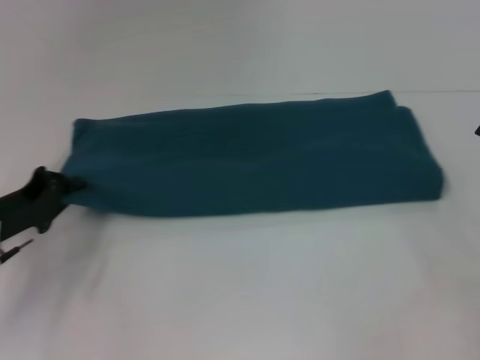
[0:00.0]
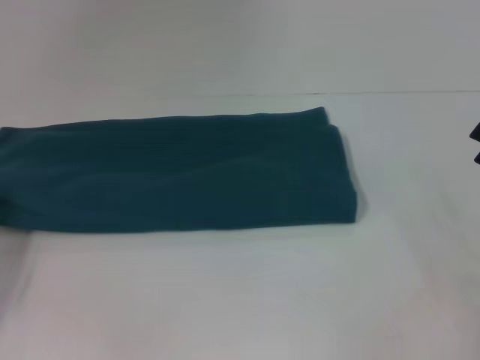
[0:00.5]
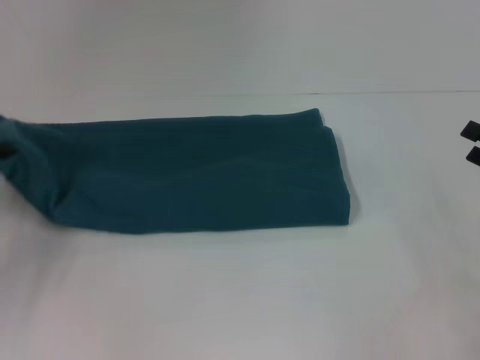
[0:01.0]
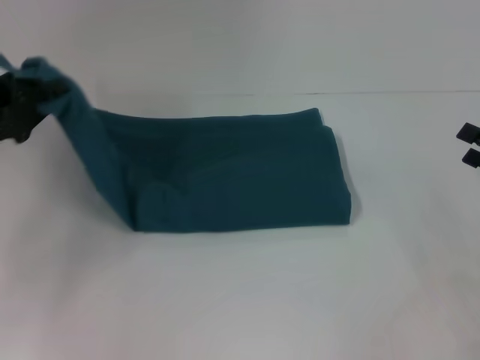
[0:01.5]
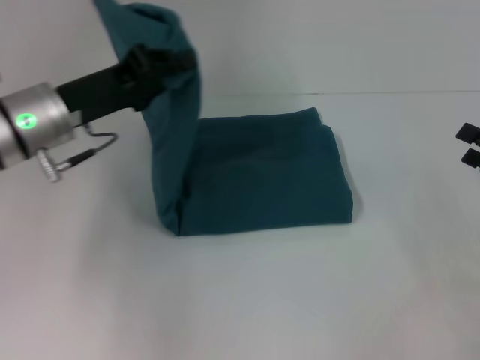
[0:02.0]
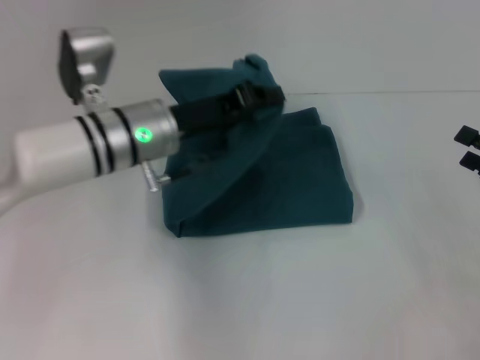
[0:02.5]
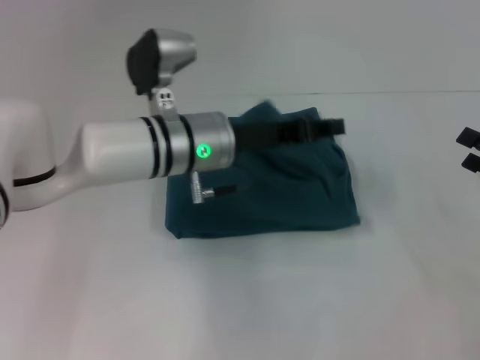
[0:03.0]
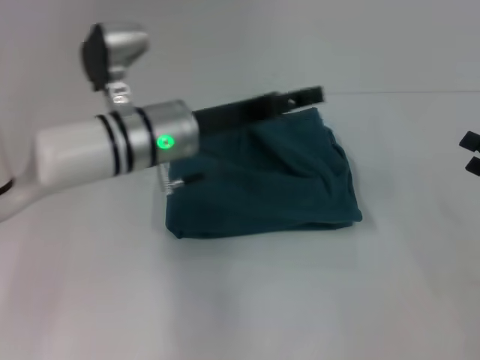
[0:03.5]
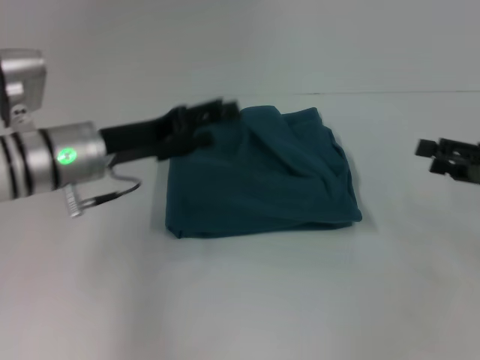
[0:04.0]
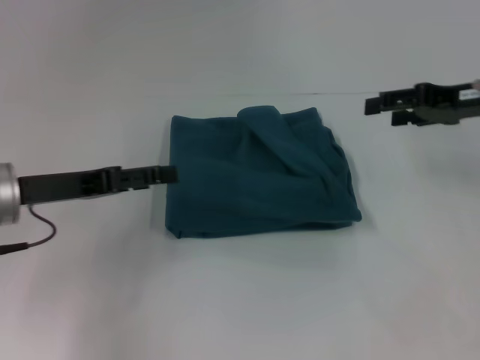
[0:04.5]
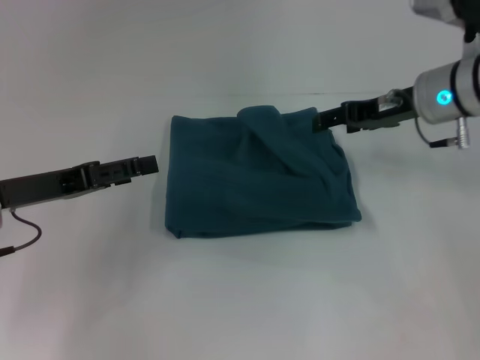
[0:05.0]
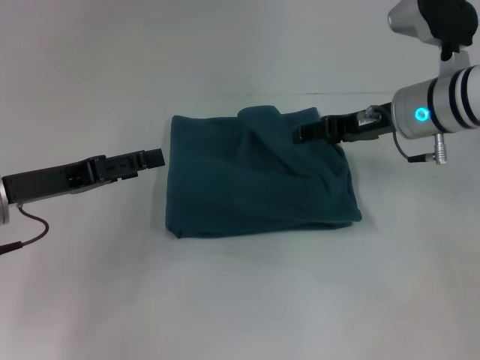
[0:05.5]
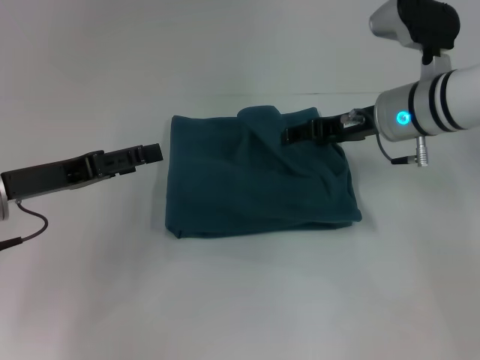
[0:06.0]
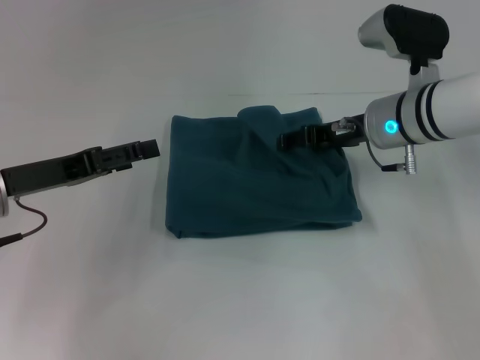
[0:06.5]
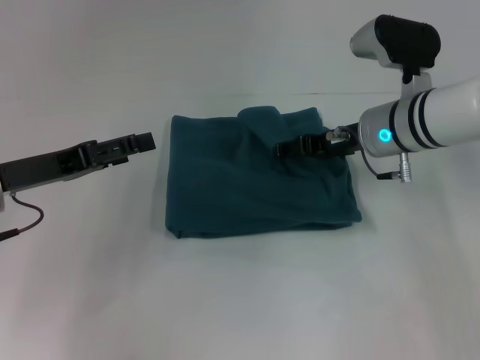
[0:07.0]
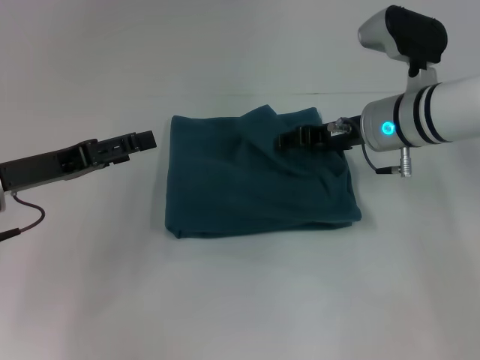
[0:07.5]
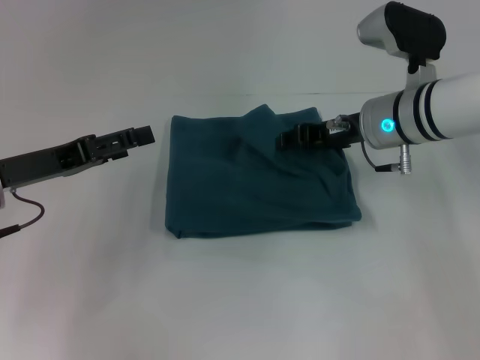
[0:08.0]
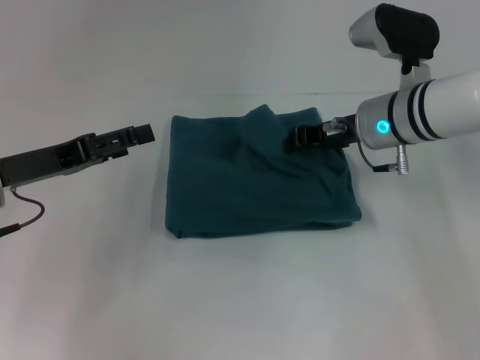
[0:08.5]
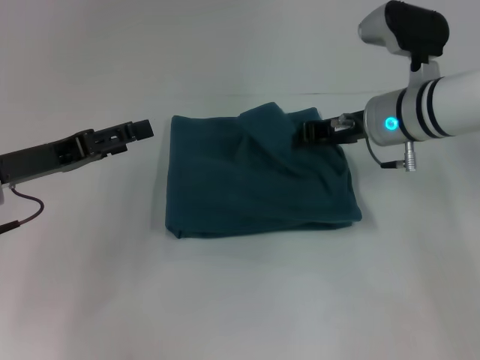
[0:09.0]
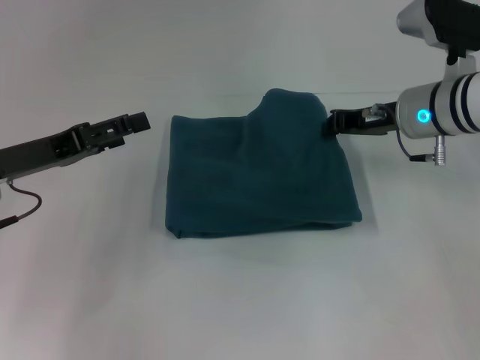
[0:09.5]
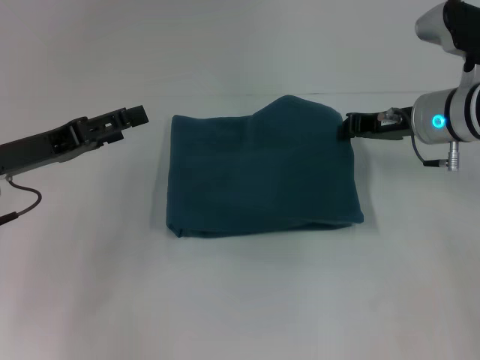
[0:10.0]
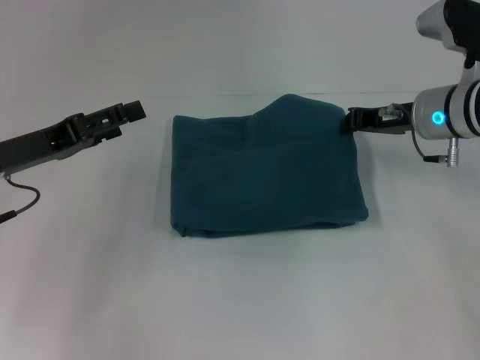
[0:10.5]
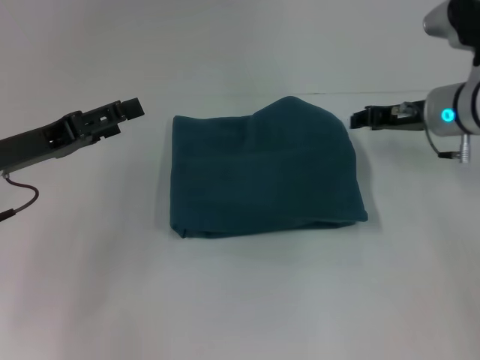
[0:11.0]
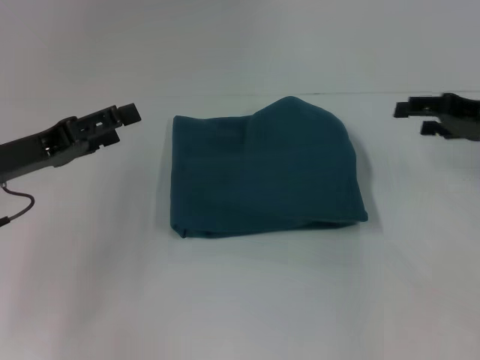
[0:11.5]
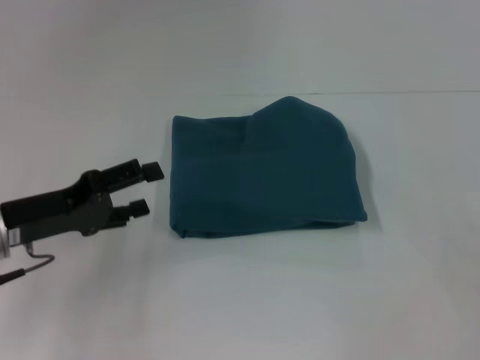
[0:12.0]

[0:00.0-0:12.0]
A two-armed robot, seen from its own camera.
Step, 0.0 to 3.5 s: Fold the clothes to the left.
0.0 to 2.0 s: The left gripper shifts about 15 cm upward, to the right and forward.
2.0 to 4.0 s: The left gripper travels to the right and back again, roughly 15 cm each way, and opens up.
4.0 to 6.0 s: The right gripper moves to the left and forward, some 20 cm. The left gripper goes about 10 cm to the left and backward.
6.0 to 8.0 s: The right gripper closes up.
8.0 to 10.0 s: The right gripper moves to the right, about 5 cm, and closes its fingers.
10.0 to 12.0 s: The right gripper is displaced to the right and backward by some 25 cm, and opens up.

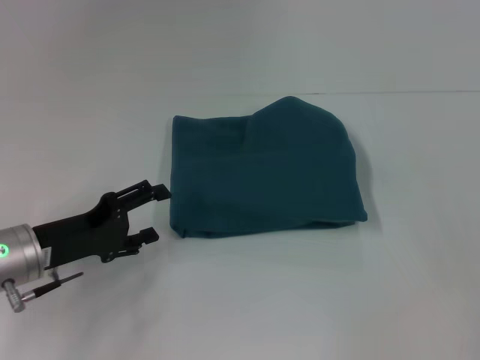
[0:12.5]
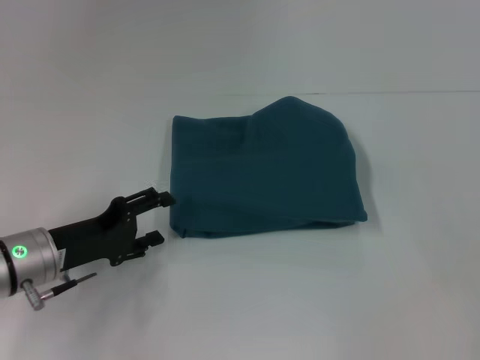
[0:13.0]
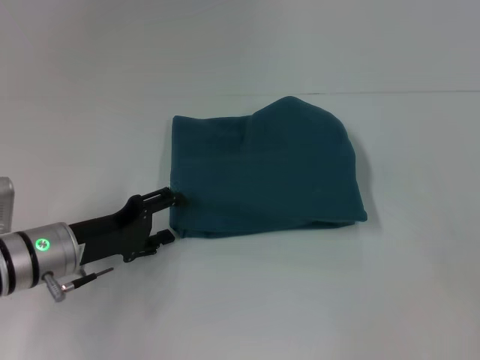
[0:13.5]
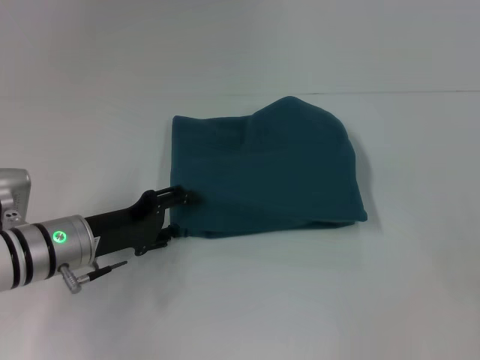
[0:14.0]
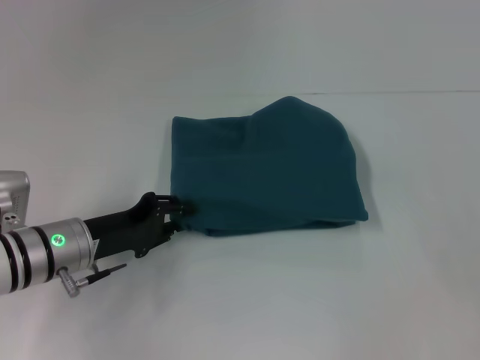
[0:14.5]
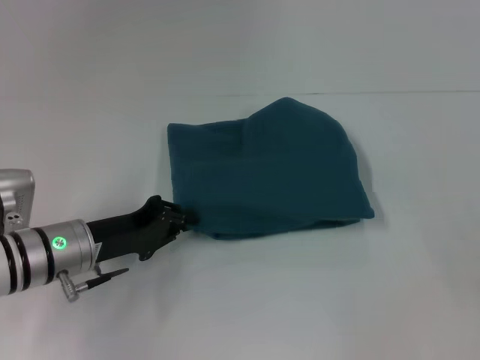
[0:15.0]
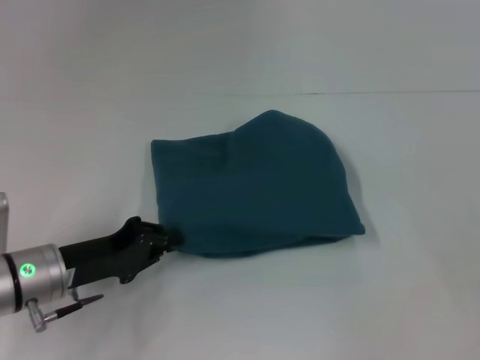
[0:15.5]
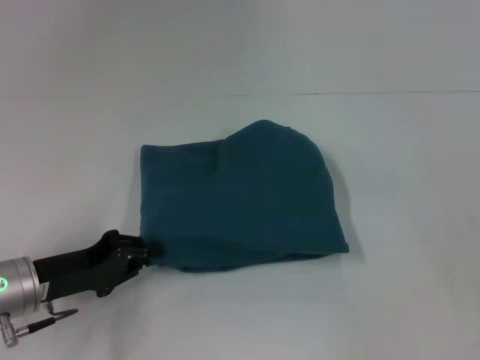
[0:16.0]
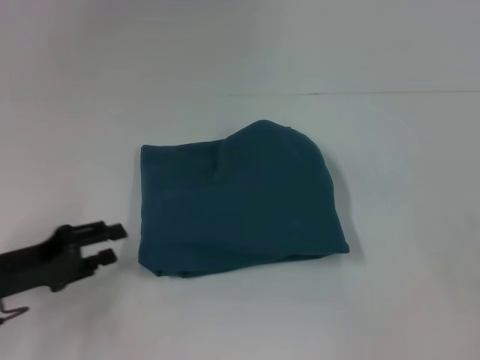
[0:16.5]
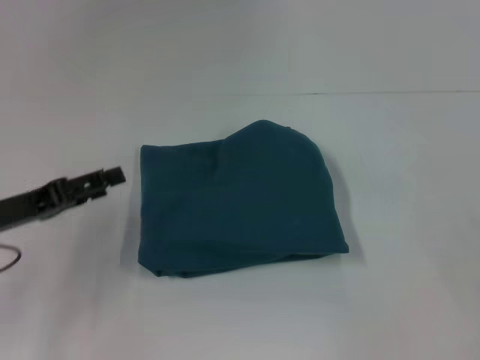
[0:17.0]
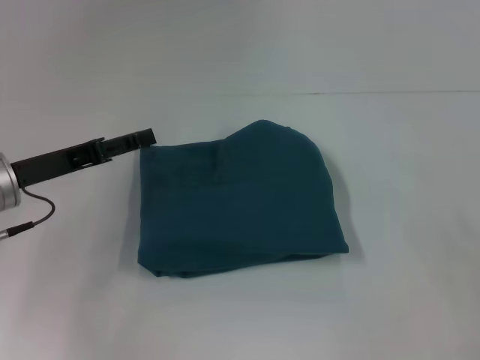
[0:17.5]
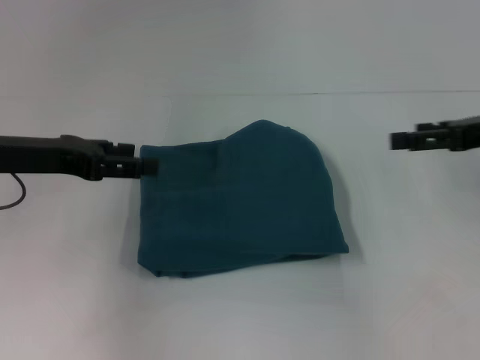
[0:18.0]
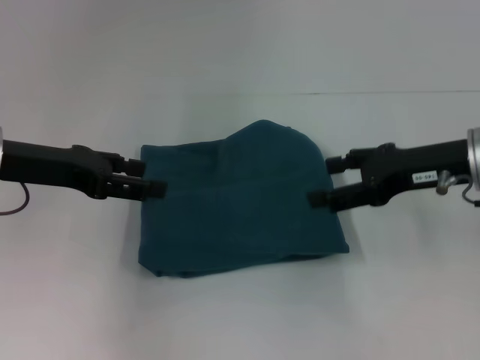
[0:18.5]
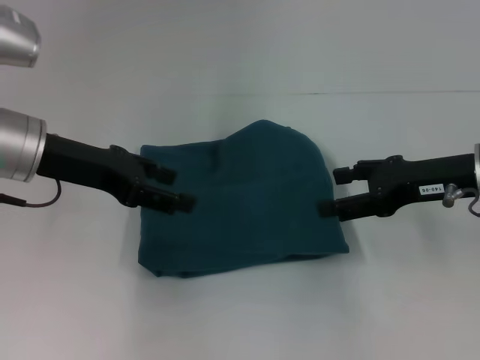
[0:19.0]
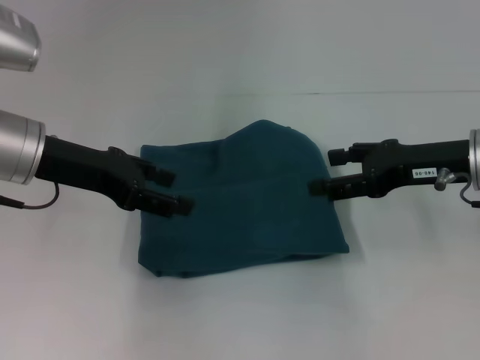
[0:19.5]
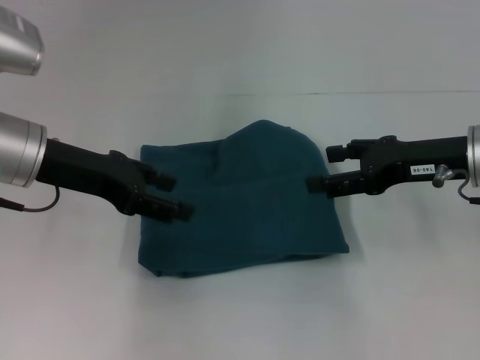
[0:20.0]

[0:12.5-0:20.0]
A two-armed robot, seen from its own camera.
12.5 to 14.5 s: The left gripper changes place by about 5 cm, and closes.
14.5 to 16.5 s: The left gripper shifts about 10 cm to the left and backward.
16.5 to 18.0 s: The left gripper goes some 15 cm upward and forward, and opens up; the right gripper travels forward, to the left and upward by approximately 15 cm.
18.0 to 20.0 s: The right gripper travels to the left by roughly 10 cm.

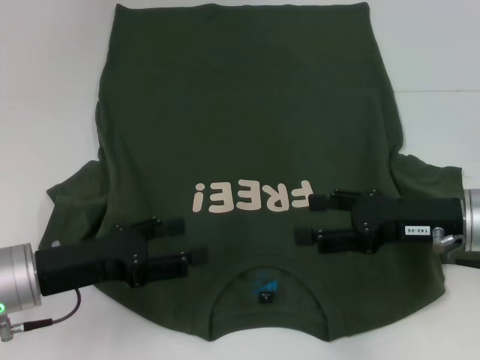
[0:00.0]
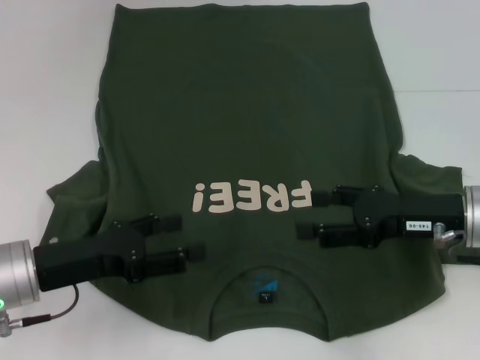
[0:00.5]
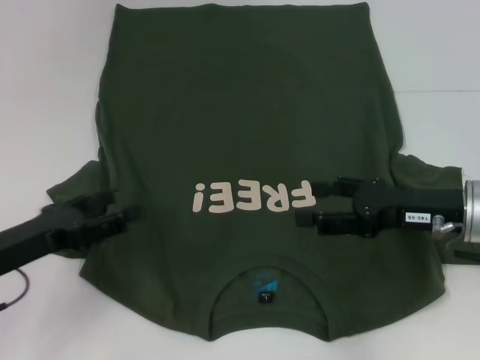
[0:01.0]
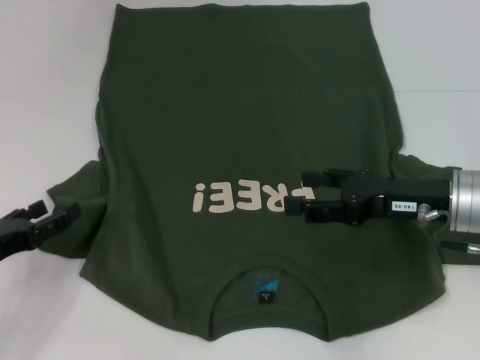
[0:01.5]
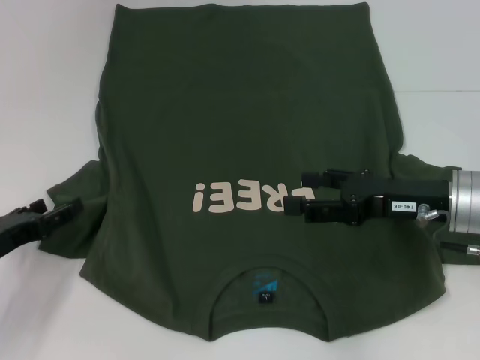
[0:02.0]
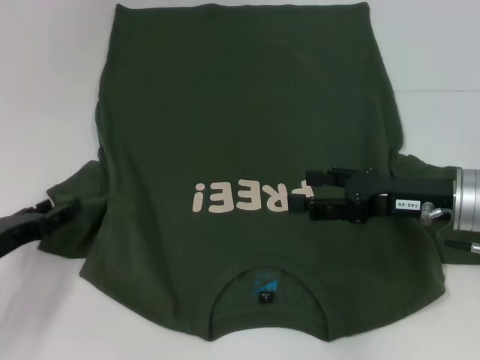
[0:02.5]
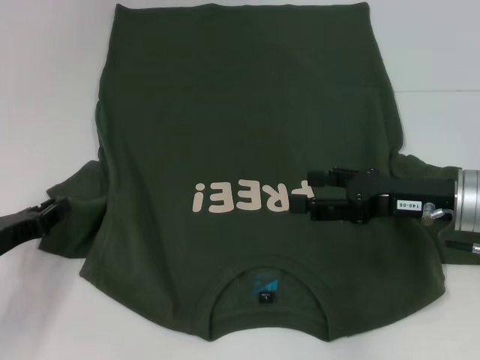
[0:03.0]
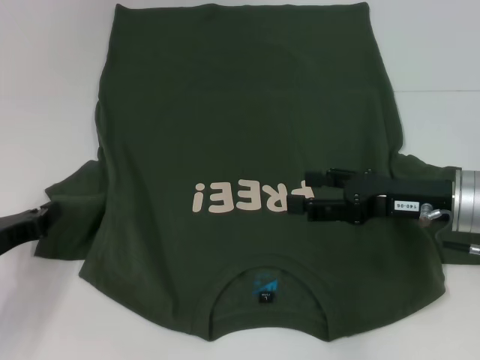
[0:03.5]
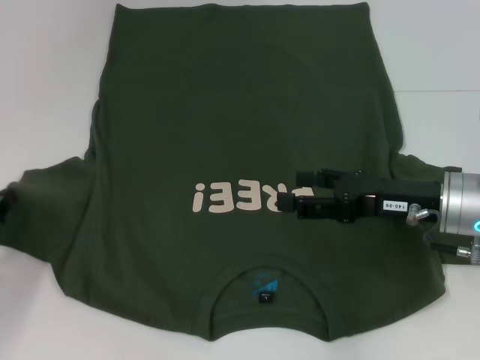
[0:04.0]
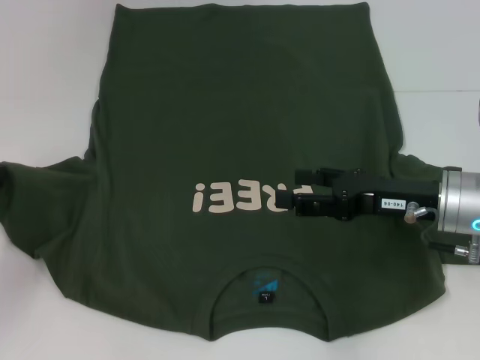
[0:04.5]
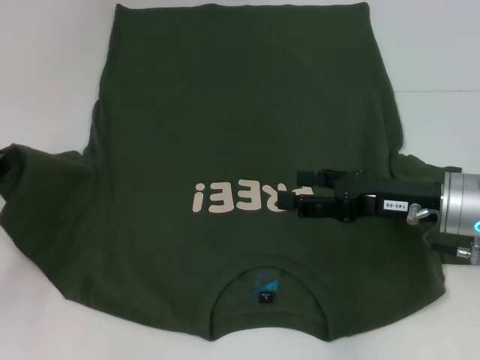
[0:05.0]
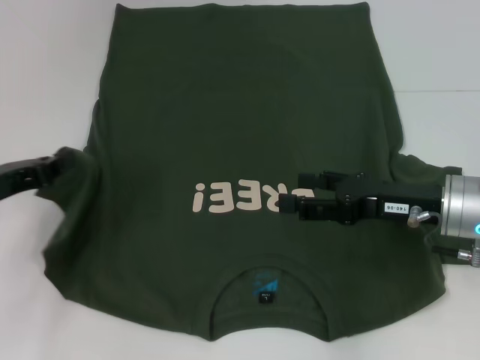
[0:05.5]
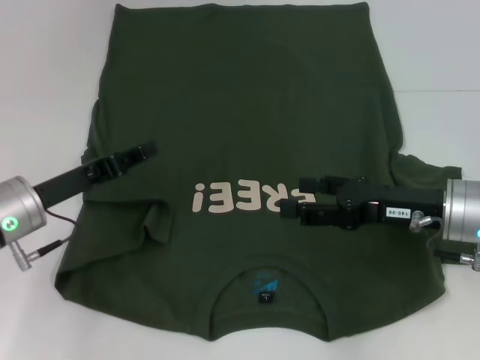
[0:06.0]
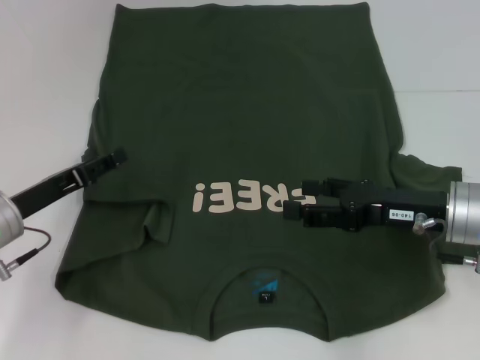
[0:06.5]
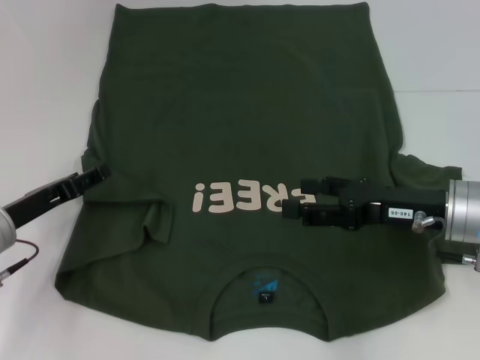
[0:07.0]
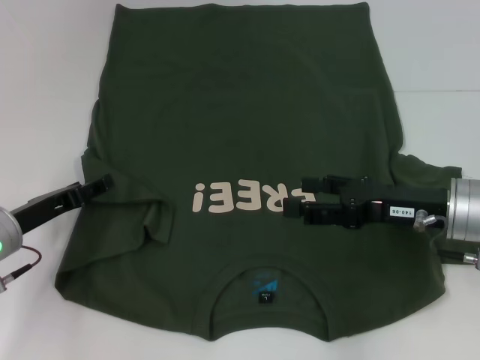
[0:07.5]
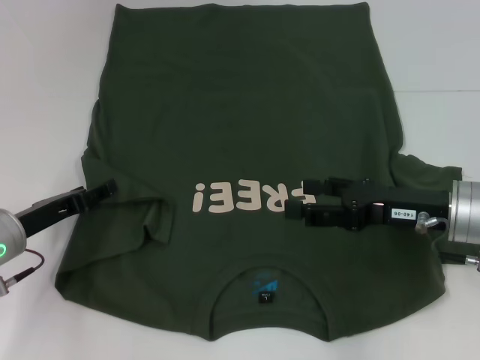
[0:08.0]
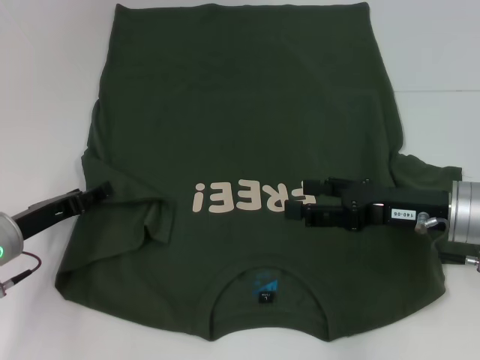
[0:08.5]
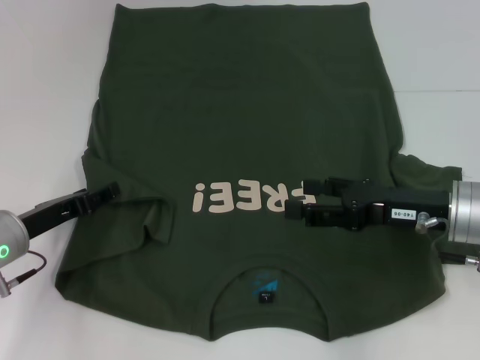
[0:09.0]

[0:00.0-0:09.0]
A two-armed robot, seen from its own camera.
0.0 to 2.0 s: The left gripper goes roughly 10 cm to the left.
2.0 to 4.5 s: The left gripper changes place by approximately 5 cm, and closes.
4.5 to 7.0 s: The left gripper goes approximately 10 cm to the right, and opens.
7.0 to 9.0 s: The grippers stay close to where they were, moving slightly.
